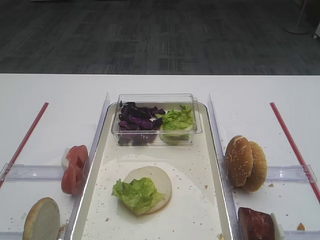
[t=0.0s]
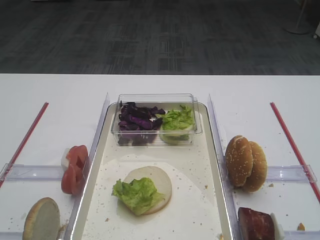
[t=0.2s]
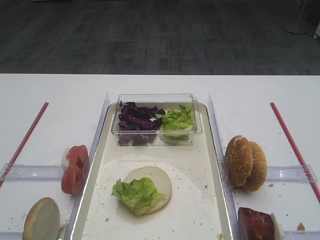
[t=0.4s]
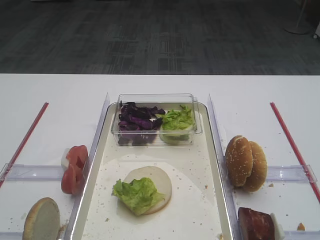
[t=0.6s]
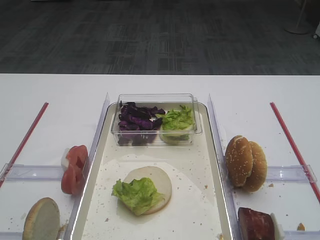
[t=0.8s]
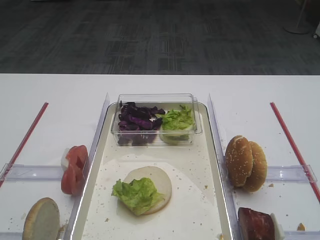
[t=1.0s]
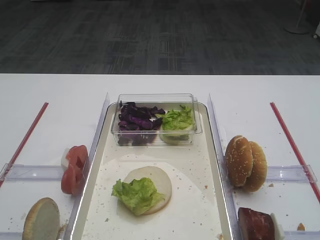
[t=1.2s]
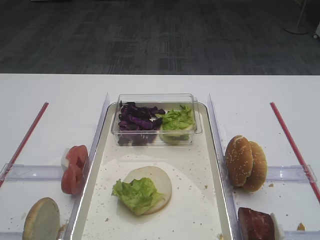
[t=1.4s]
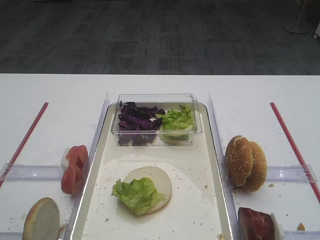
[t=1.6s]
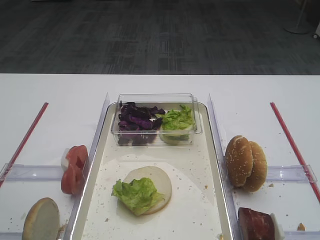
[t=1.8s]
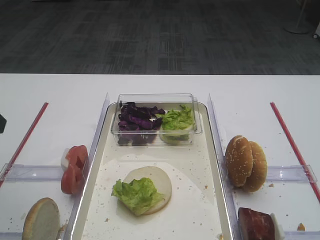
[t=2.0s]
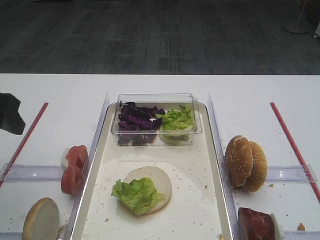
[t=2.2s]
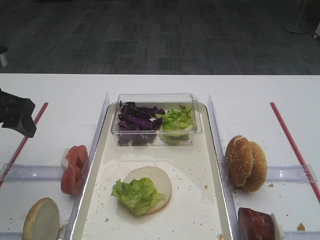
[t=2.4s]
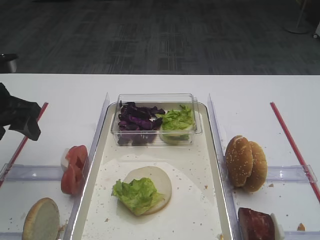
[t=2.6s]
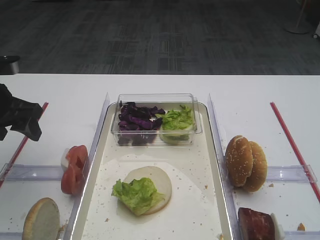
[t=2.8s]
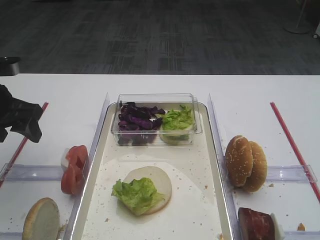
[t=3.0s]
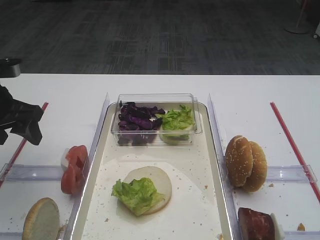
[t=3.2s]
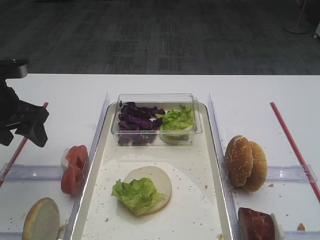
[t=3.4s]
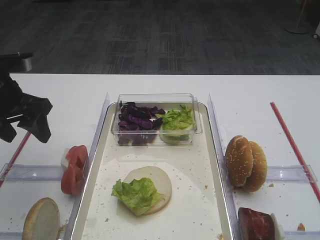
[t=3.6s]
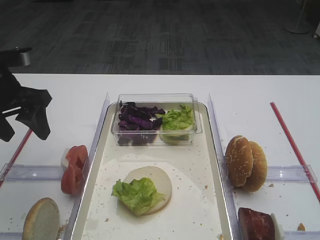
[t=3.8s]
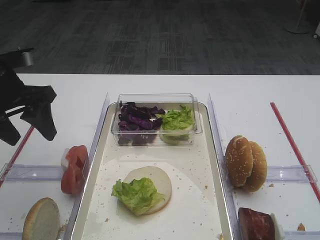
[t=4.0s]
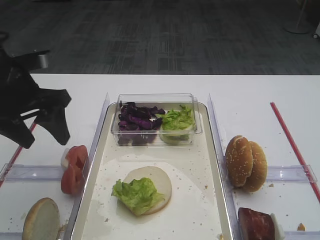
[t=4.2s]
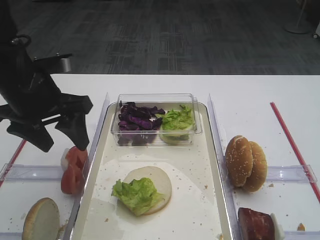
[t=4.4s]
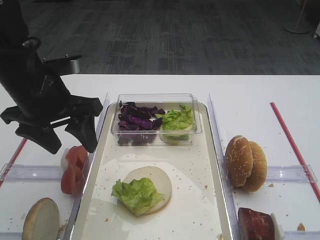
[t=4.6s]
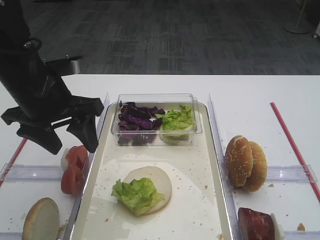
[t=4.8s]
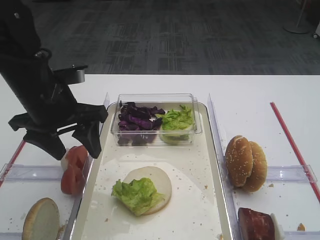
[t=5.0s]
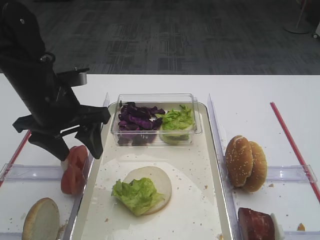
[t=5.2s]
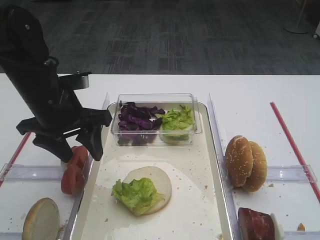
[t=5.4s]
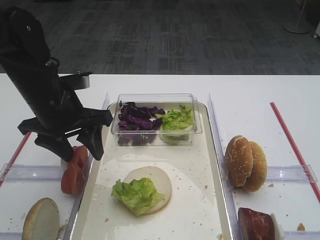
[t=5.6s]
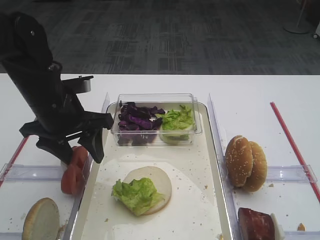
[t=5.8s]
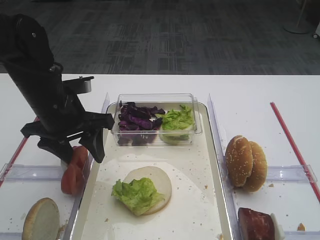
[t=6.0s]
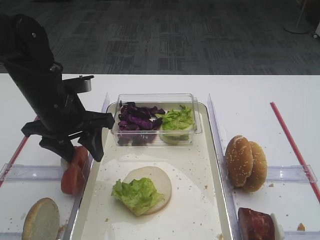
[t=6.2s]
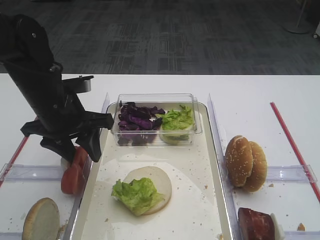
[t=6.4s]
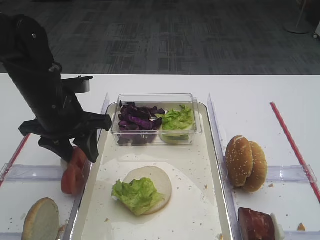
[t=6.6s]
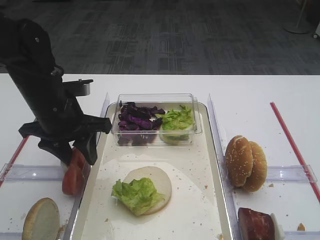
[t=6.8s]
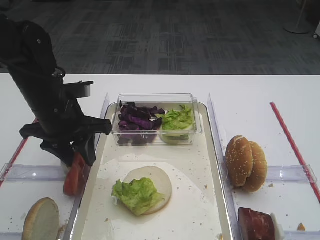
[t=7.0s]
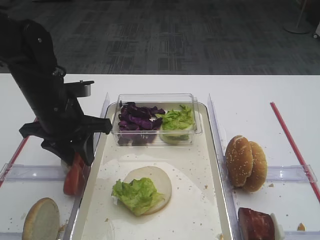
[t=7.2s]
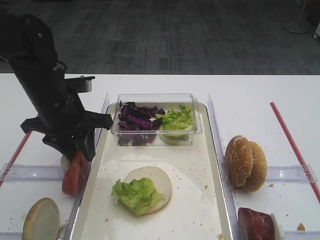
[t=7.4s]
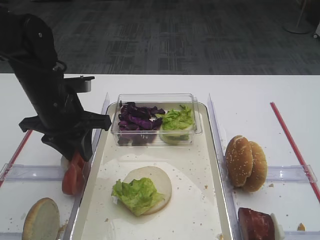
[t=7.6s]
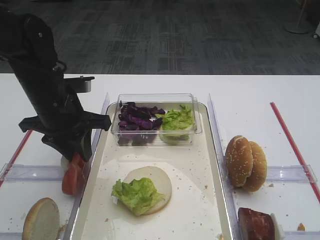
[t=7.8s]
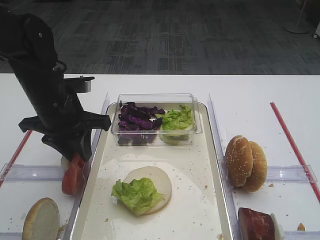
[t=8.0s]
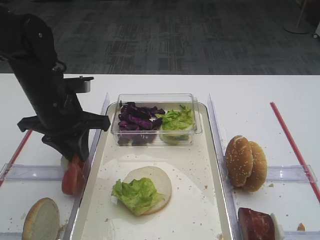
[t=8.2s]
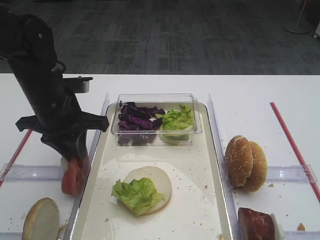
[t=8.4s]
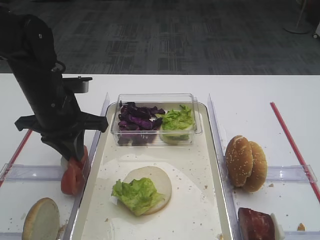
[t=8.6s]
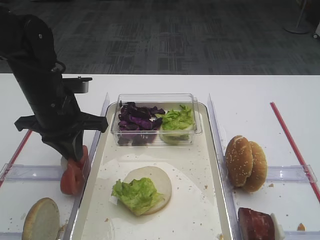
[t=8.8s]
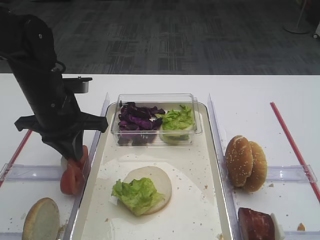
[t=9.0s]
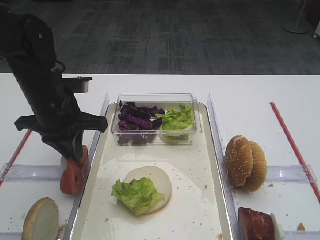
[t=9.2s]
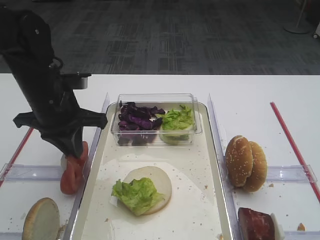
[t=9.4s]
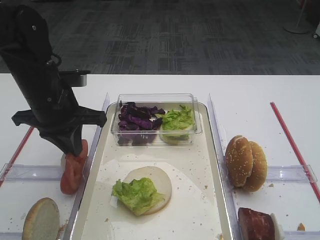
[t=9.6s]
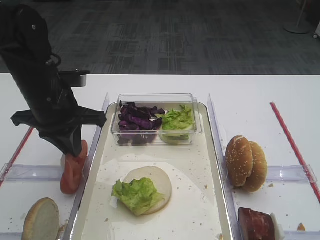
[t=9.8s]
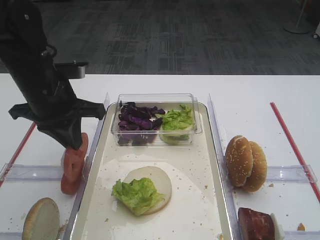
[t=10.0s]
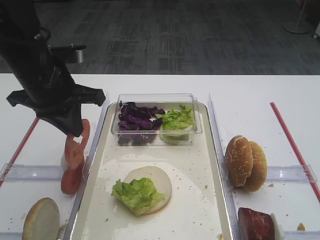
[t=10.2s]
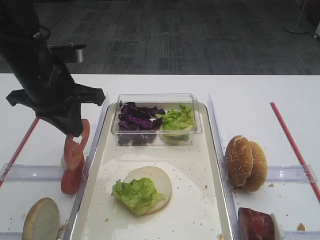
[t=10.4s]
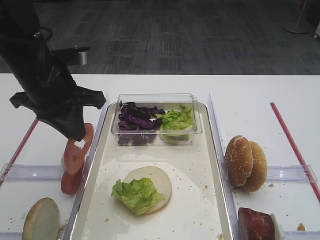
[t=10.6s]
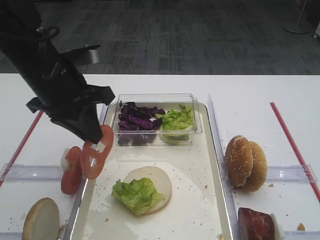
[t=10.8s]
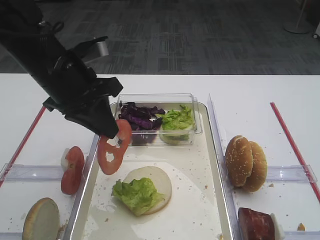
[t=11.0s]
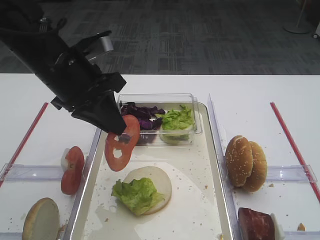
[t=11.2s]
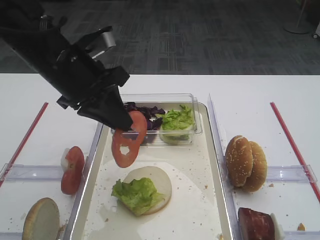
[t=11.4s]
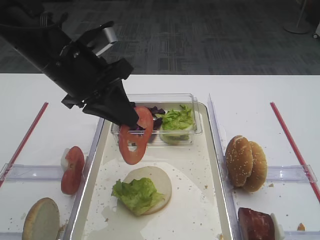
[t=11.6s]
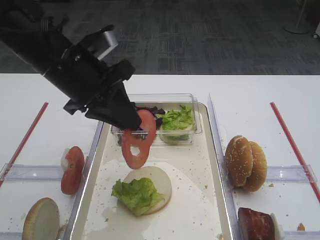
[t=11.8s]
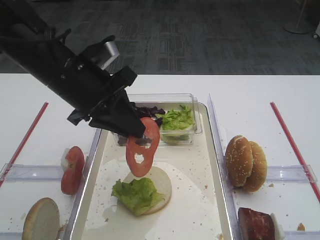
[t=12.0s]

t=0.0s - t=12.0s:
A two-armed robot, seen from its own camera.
Step, t=0.0s - t=10.0s: Pick up the tomato slice with the left gripper.
t=1.6s - t=3.0s: The left gripper heads forward and downward, covering about 25 cm.
t=3.0s - t=4.4s: The left gripper shifts some 10 cm to the right.
t=4.4s - t=6.0s: The left gripper moves some 5 cm.
t=6.0s - t=7.6s: The two grippers keep their place.
t=7.6s - t=9.0s: Both grippers stay about where they are.
t=9.0s - t=10.4s: The left gripper heads upward, covering some 5 cm.
t=10.4s - t=12.0s: The left gripper shifts by about 5 cm.

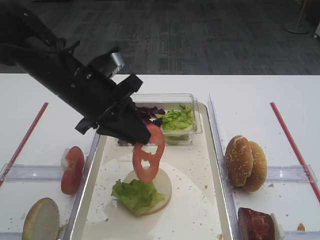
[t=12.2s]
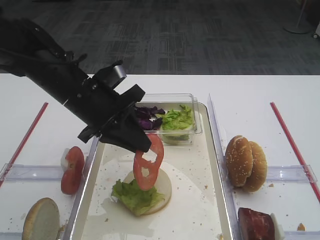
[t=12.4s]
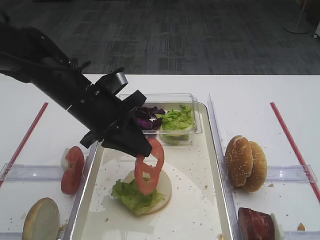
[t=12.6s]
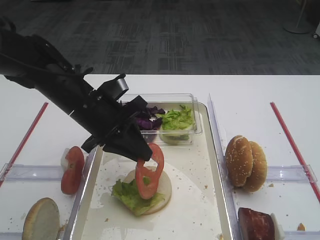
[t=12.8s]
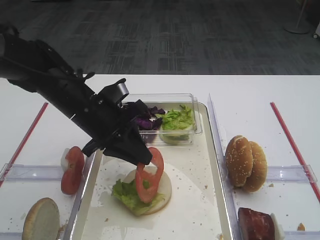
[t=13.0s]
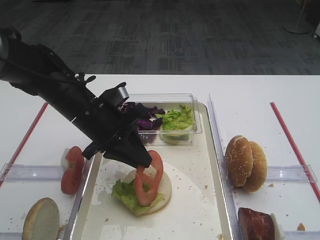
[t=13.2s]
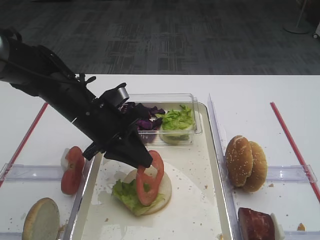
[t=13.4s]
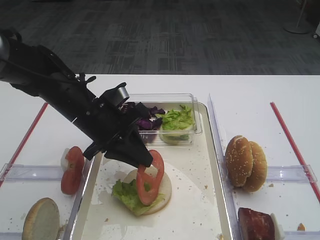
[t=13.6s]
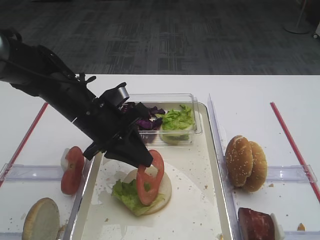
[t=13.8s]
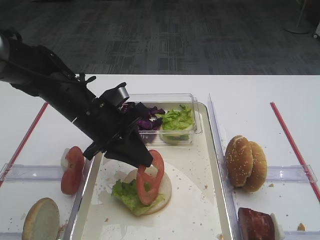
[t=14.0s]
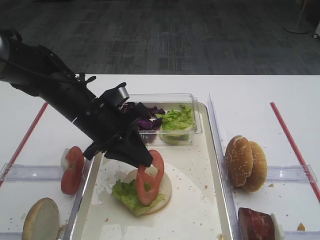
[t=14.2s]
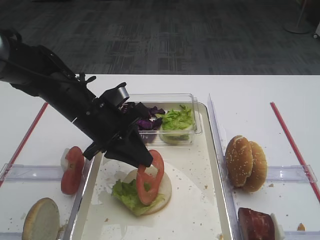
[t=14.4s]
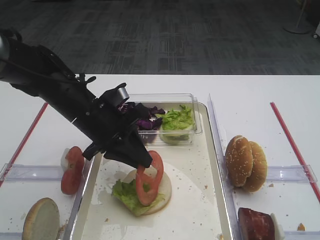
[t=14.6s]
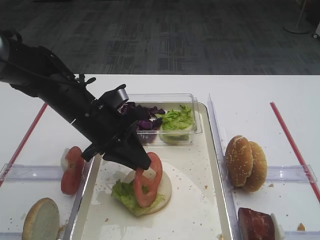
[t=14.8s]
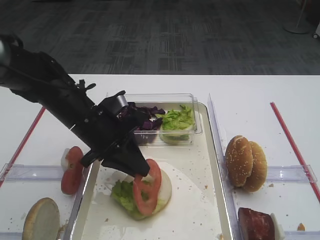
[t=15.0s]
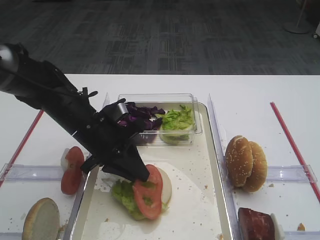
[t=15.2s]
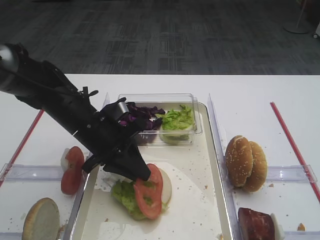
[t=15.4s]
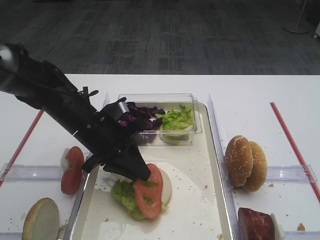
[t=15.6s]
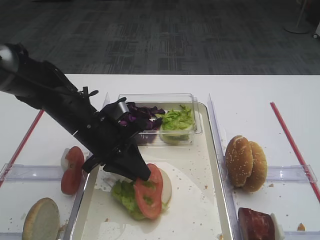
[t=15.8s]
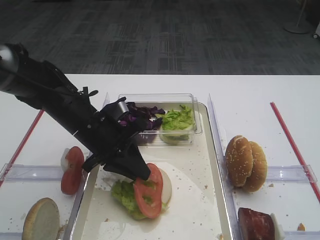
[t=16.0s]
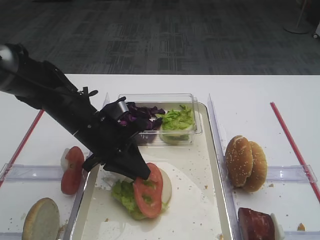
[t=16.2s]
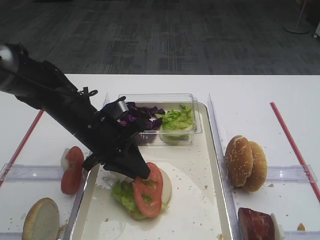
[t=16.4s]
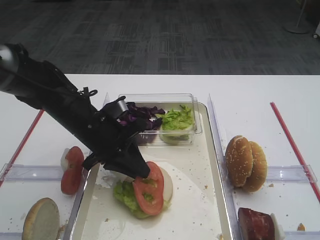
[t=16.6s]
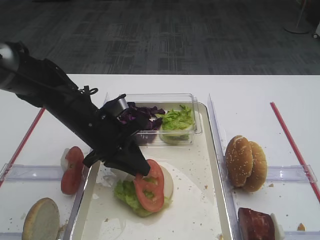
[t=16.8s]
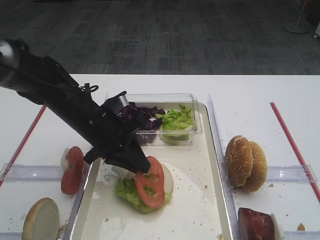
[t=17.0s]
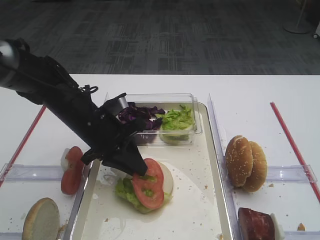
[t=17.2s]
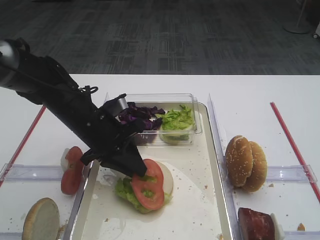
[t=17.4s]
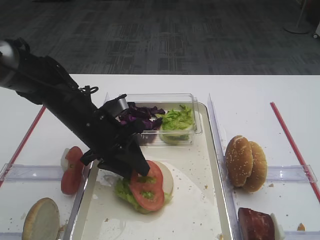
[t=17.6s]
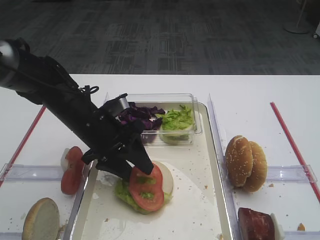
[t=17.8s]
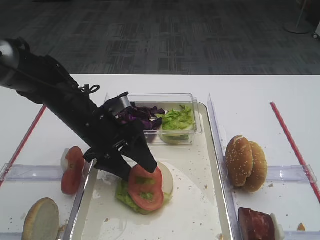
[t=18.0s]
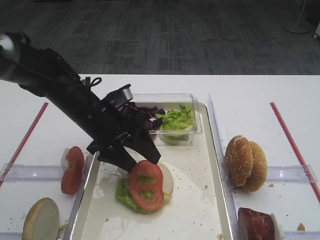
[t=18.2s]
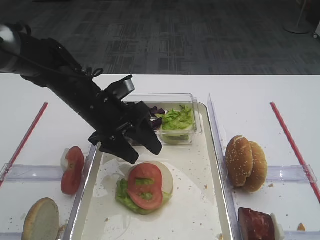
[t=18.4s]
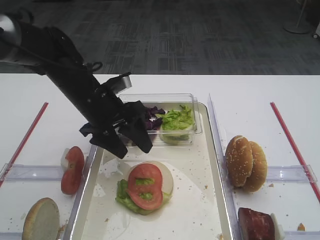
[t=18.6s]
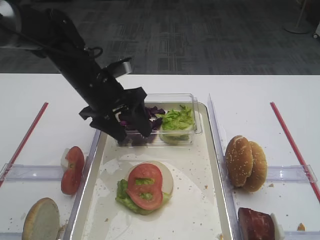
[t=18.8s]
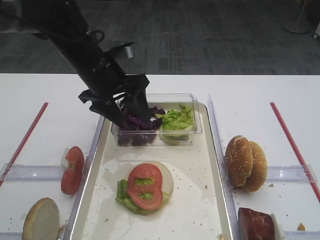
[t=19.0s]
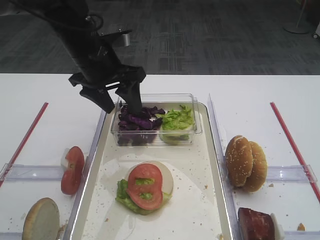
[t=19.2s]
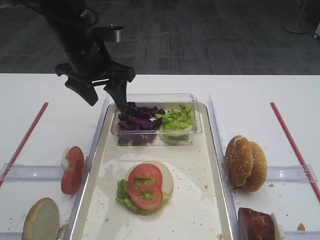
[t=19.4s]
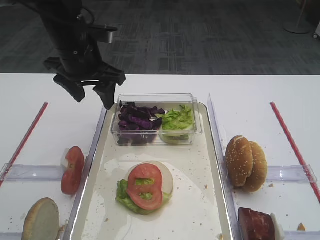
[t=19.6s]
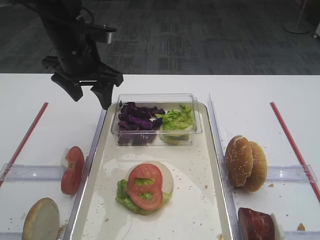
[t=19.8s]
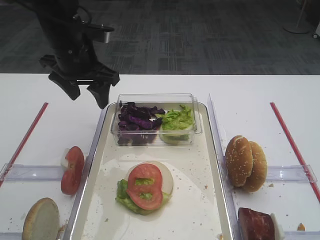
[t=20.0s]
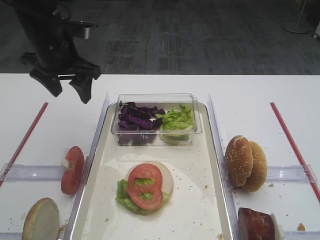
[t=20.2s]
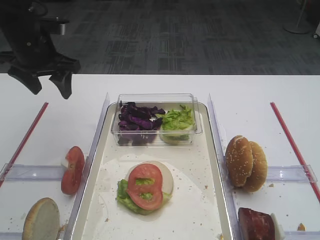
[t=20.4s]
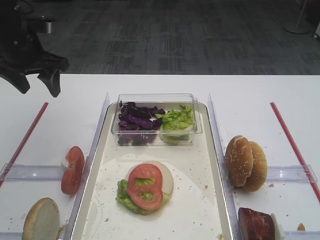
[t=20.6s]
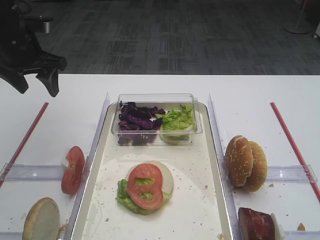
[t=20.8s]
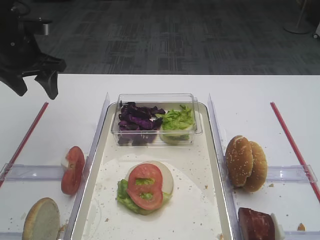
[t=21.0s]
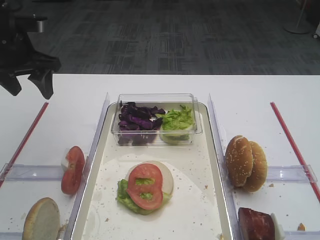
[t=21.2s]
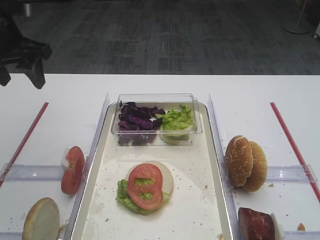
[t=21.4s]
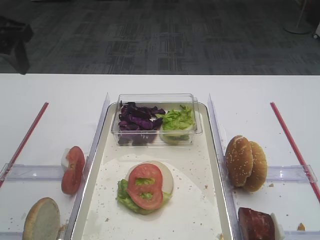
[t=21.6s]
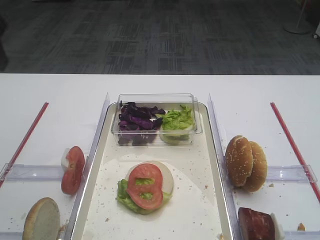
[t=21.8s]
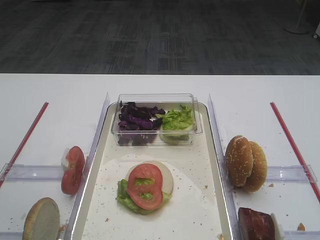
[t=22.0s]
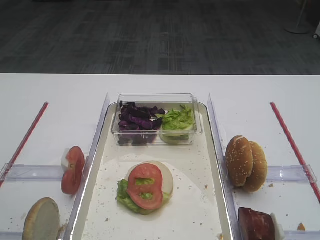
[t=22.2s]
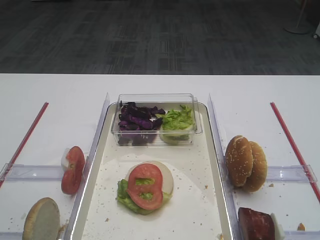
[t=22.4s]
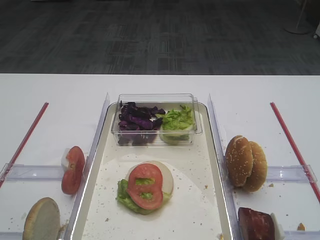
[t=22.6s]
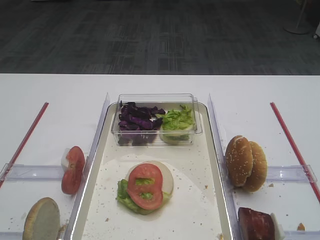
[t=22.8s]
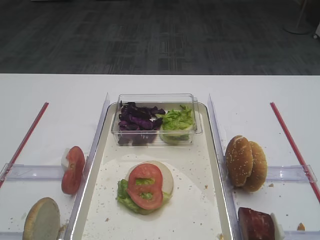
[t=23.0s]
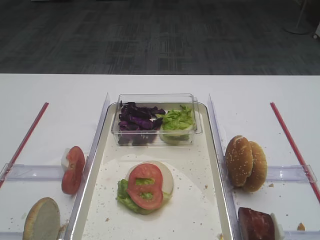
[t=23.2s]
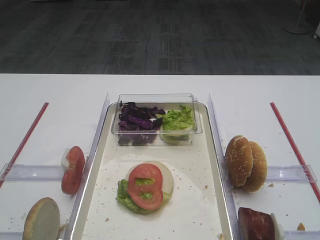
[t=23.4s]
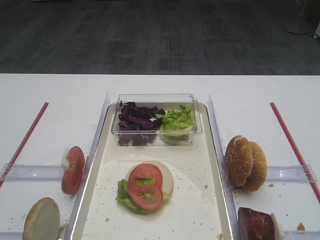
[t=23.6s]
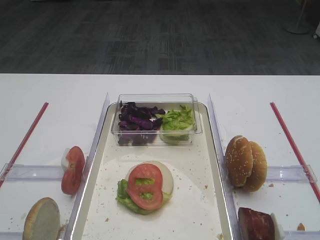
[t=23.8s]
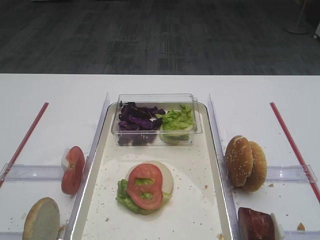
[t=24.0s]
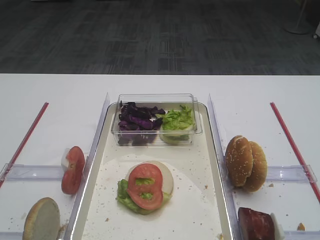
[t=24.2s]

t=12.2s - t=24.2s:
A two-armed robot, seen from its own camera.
Step, t=12.2s - t=18.4s: Place the tomato slice on the lettuce leaf with the left gripper.
t=12.2s - t=13.8s: The left gripper is displaced downward by some 5 cm.
t=13.8s - t=15.2s: The grippers move only a little.
t=15.2s - t=16.6s: Both grippers stay about where they are.
t=16.6s - t=18.2s: The left gripper opens up.
t=18.2s - t=19.8s: The left gripper shifts roughly 10 cm upward and forward.
t=19.8s - t=21.2s: The left gripper shifts about 10 cm to the left.
t=21.2s - t=22.6s: The left gripper goes some 30 cm backward.
